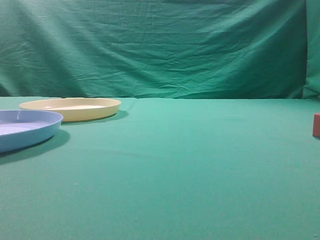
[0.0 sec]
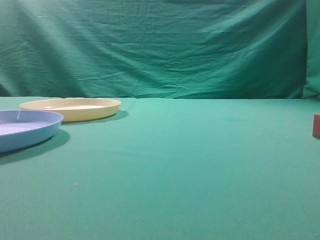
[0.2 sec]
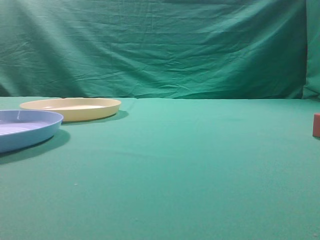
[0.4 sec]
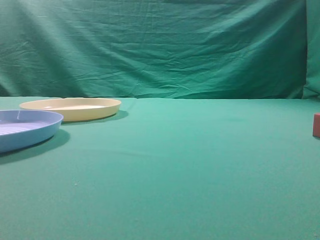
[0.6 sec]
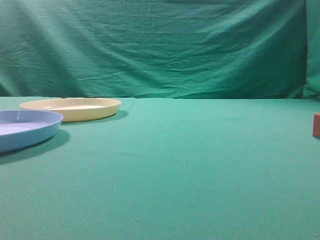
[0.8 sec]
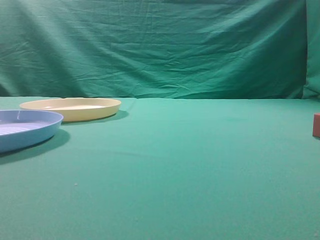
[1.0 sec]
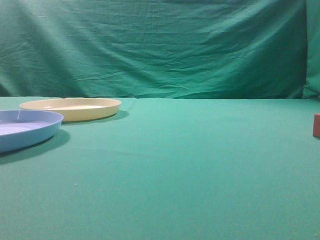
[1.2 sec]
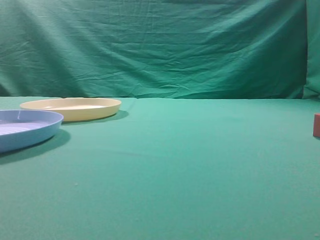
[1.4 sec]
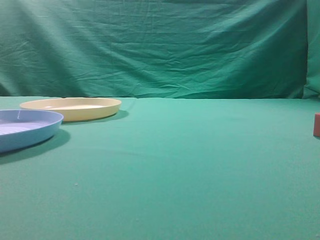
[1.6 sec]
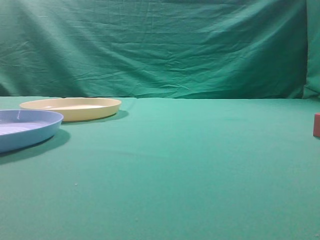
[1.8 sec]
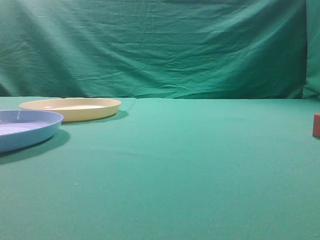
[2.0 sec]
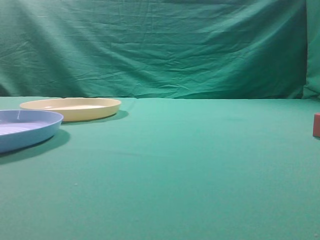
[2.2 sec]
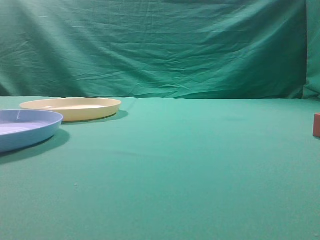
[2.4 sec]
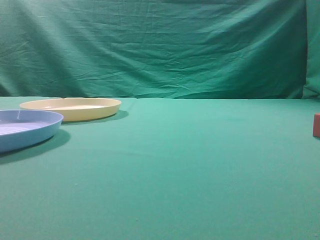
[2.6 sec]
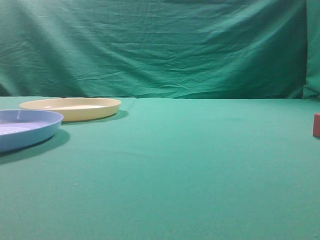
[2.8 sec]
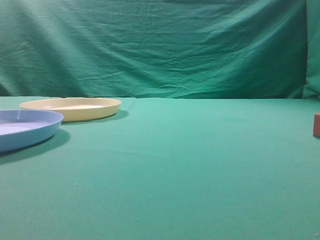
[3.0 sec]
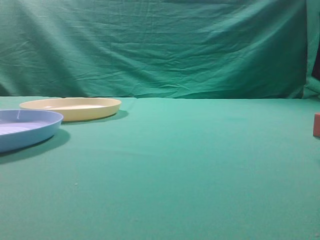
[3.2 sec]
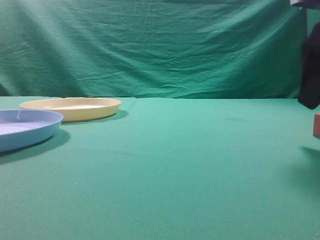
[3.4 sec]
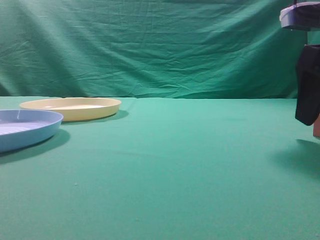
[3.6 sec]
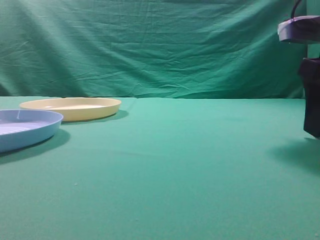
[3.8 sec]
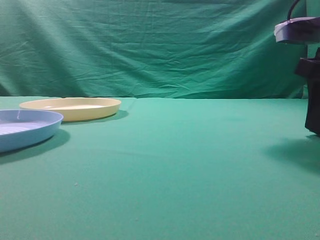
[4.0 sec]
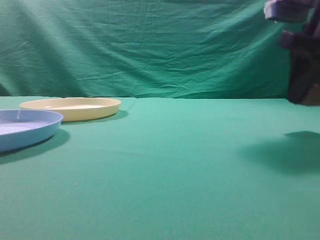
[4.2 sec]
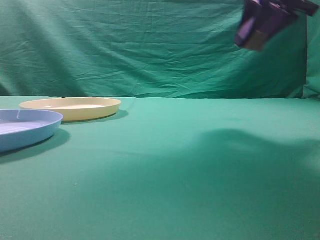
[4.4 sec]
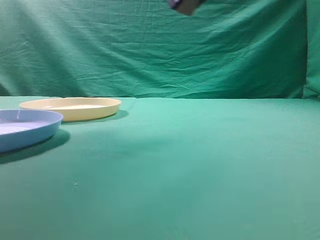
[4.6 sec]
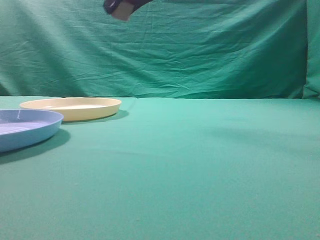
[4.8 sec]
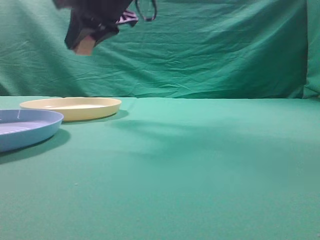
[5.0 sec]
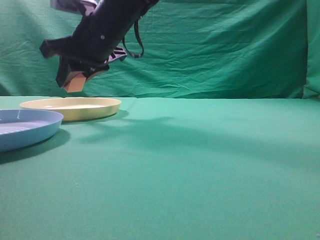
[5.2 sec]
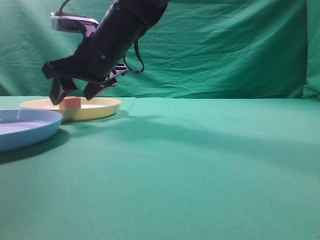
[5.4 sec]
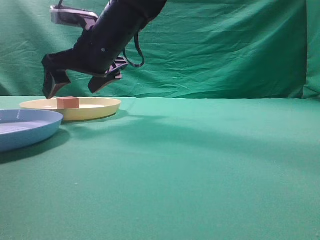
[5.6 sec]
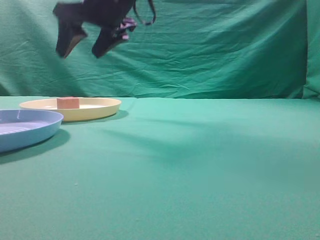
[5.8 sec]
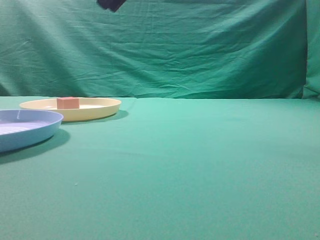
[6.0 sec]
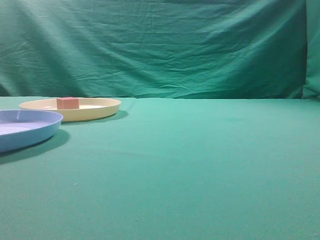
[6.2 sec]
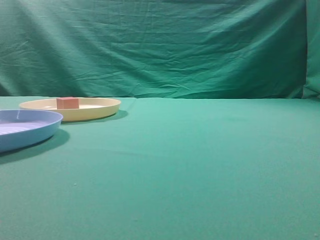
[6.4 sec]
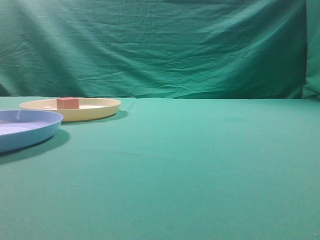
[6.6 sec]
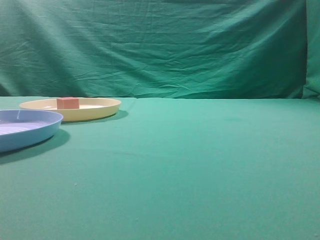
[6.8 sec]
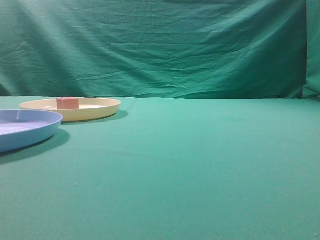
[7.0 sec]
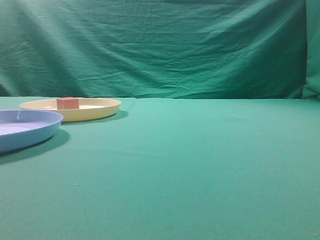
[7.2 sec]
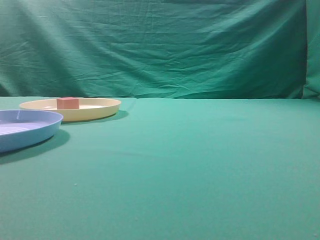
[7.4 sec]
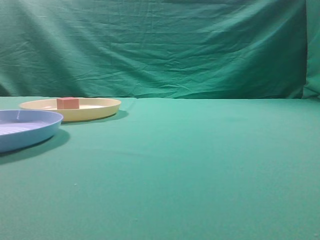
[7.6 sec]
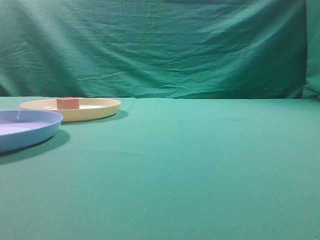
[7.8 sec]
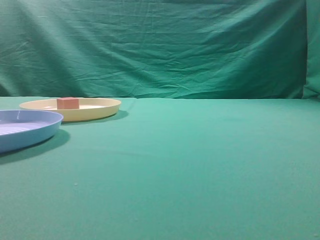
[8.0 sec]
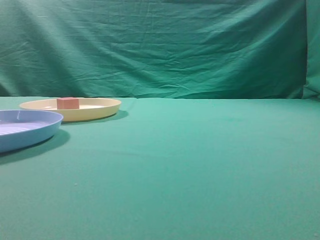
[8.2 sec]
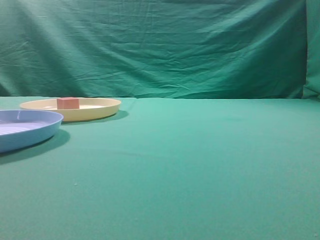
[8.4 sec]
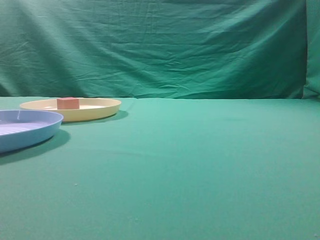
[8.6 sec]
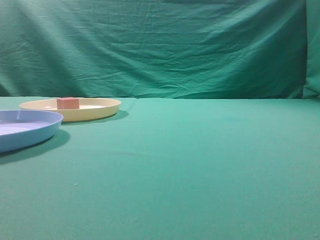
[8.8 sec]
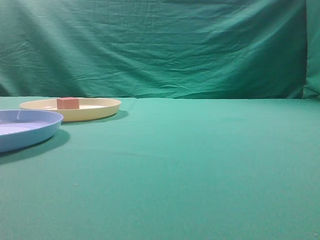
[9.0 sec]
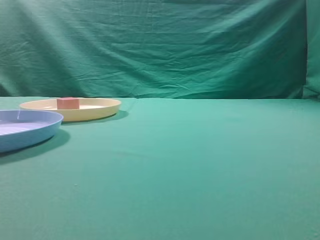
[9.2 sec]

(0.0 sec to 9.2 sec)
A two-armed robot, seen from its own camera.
Task of the whole recording: pick up the cube block from the table and put it on the plate.
Step, 0.0 sec - 4.0 sec: Grasp the small cube on the table.
Step, 4.2 sec - 5.6 sec: Place it into the yellow plate.
3.0 sec - 4.6 sec: The right gripper is displaced to the left, forward and upward by approximately 25 cm, and closes.
4.6 sec - 6.2 sec: The right gripper goes downward and returns, some 15 cm each way, and closes its fingers.
